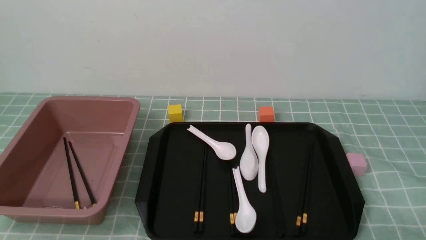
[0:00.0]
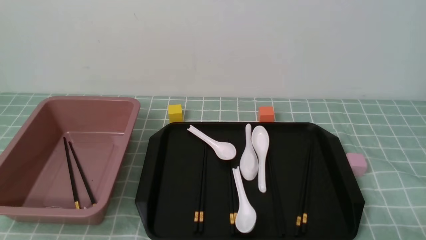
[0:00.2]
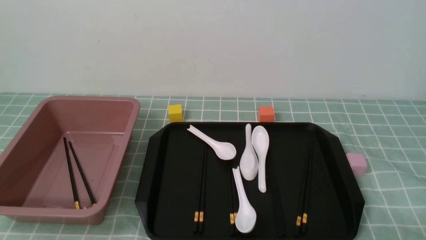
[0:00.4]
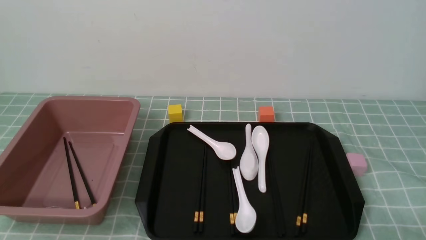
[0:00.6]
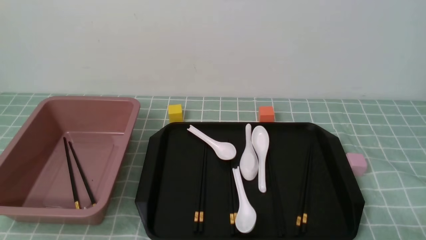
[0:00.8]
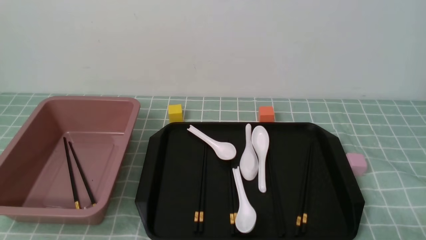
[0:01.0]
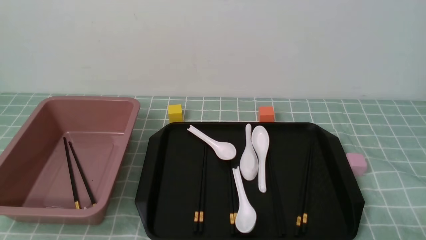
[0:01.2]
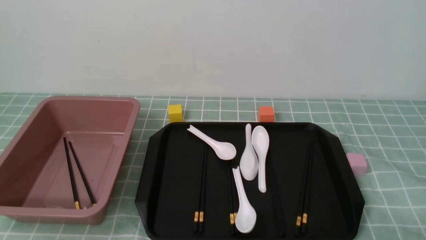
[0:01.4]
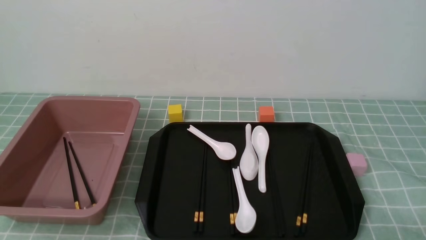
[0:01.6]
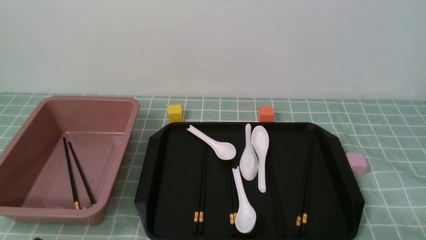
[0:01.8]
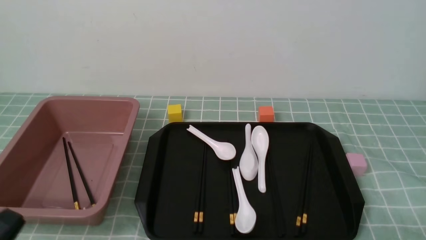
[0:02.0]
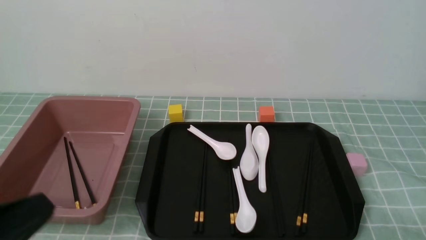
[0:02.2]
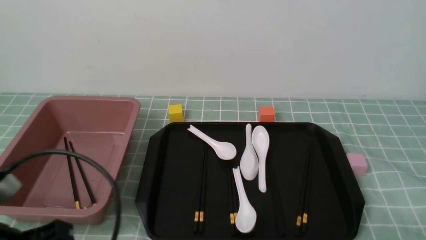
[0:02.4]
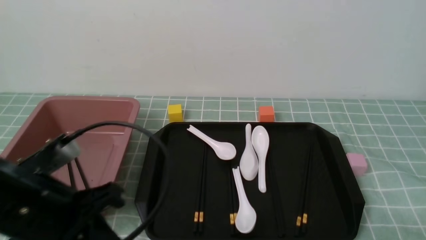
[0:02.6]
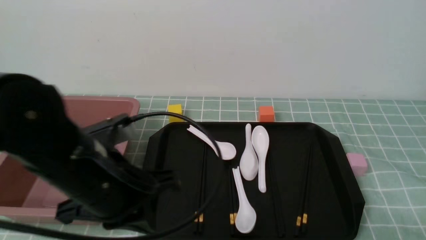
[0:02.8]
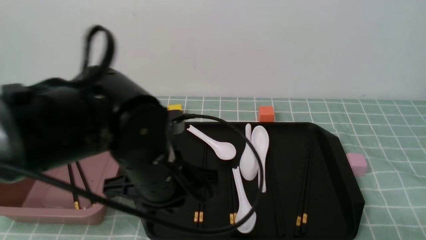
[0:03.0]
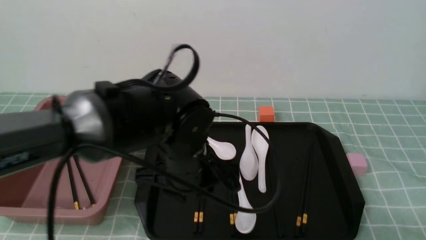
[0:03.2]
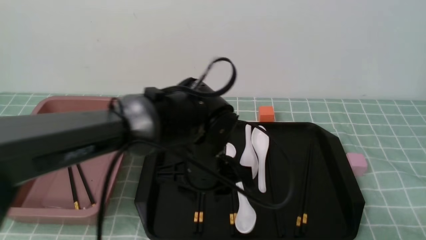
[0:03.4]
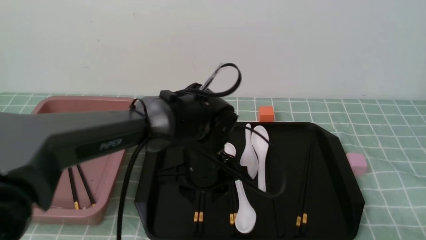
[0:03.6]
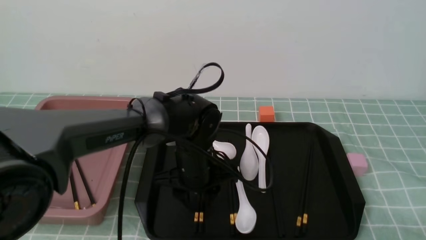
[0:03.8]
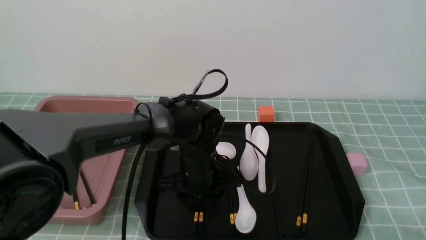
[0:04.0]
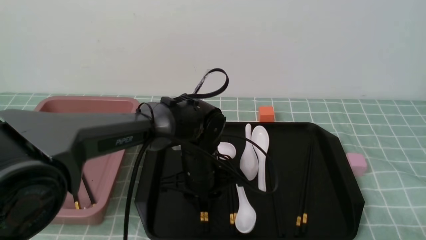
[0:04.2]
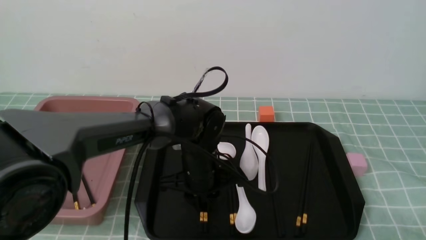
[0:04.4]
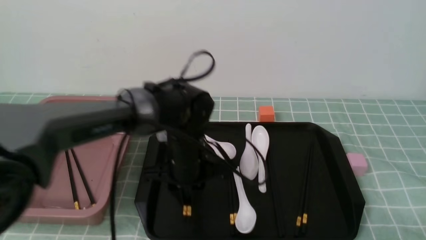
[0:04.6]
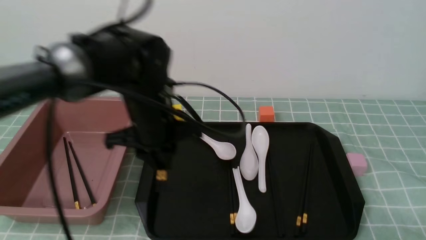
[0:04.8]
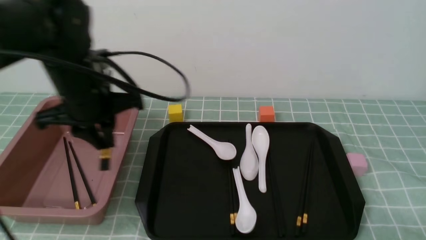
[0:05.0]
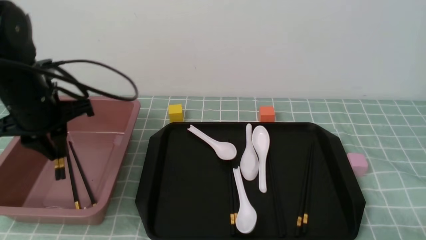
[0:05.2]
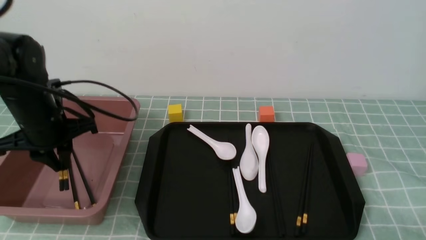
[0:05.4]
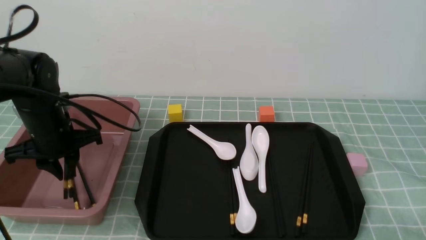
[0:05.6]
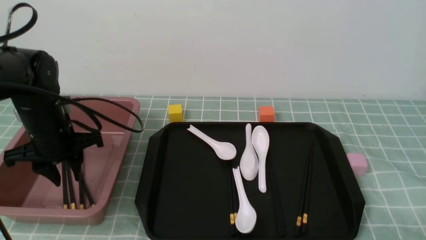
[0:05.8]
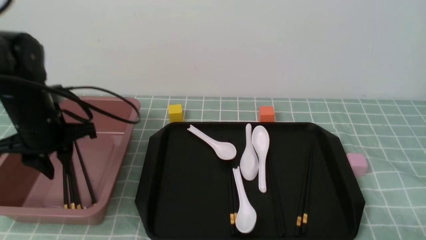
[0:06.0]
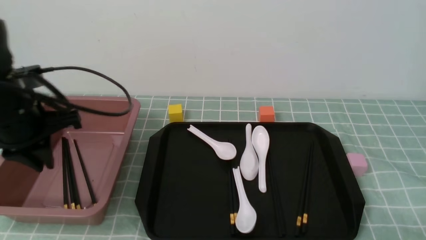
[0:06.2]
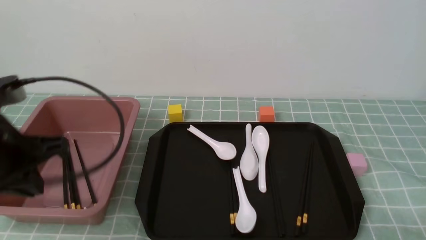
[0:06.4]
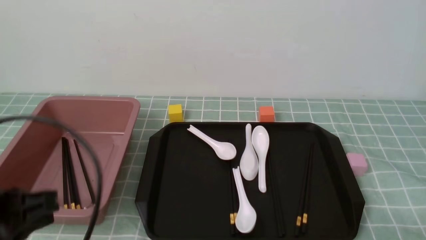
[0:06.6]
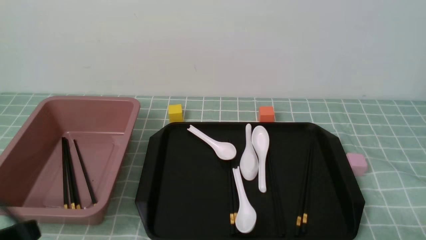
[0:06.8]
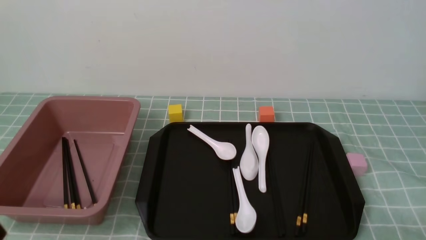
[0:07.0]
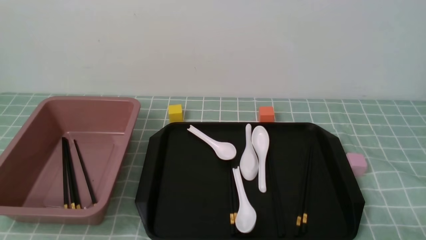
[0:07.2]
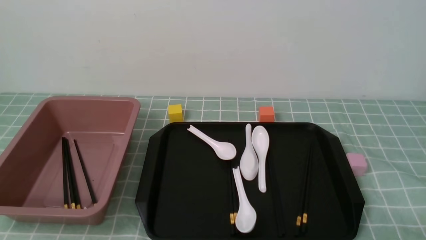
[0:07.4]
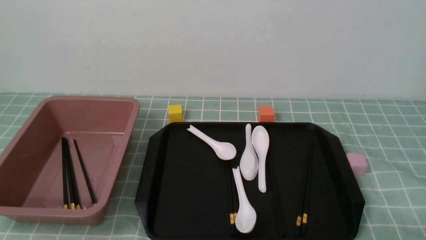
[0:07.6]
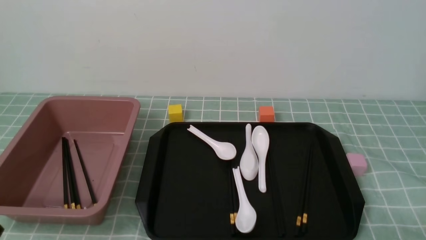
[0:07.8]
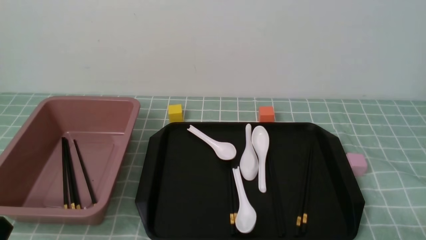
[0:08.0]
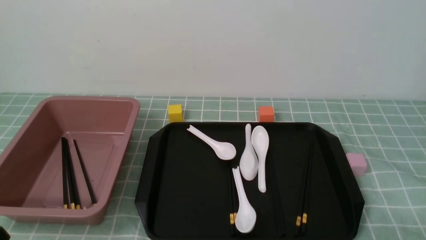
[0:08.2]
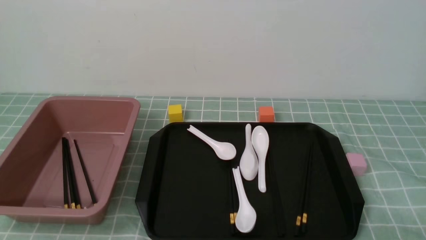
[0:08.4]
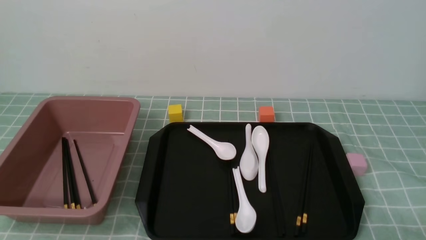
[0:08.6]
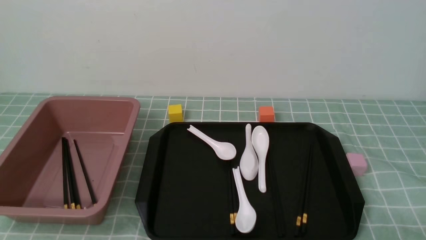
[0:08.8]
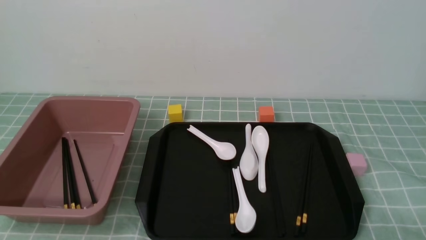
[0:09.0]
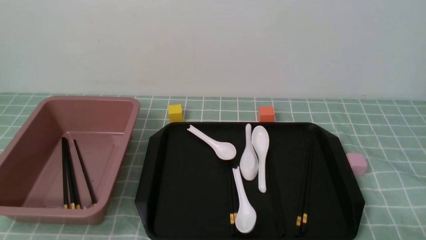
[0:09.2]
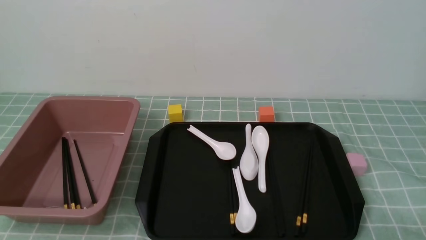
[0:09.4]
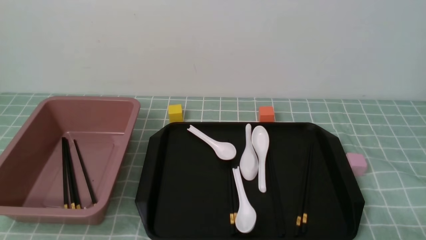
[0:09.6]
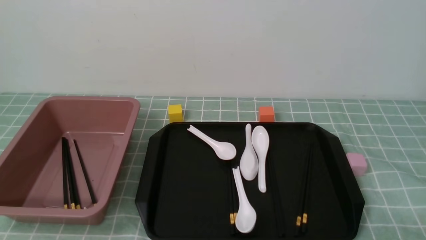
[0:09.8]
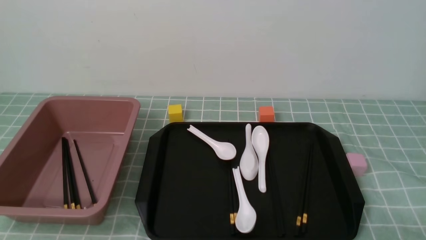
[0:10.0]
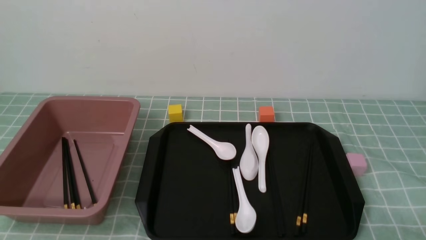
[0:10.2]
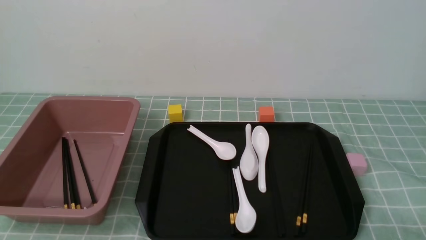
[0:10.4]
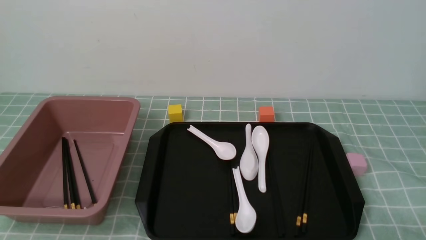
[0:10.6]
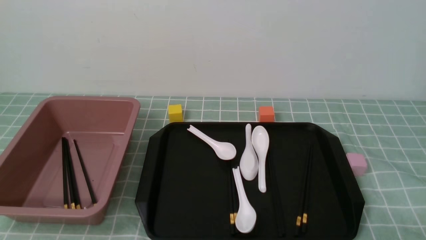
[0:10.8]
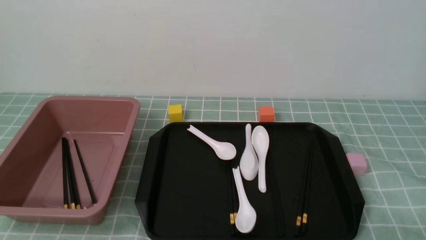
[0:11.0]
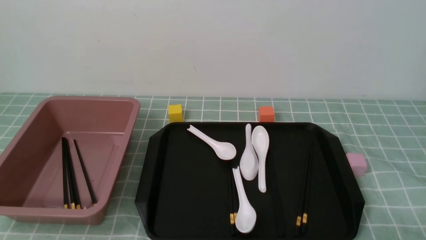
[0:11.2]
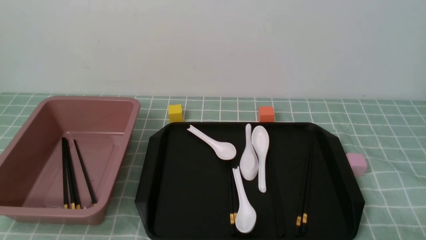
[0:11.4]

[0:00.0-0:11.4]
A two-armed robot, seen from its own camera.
Step, 0:00.0 to 0:04.8: use the left arm to grab a pair of chopsticks.
Step, 0:05.0 to 0:06.0: use the left arm to put the chopsticks into the lunch box.
0:01.4 to 0:02.8: The left gripper moves forward, upward and to the right, approximately 20 cm, and closes up.
0:02.8 to 0:04.2: The left gripper heads forward, downward and to the right, covering roughly 25 cm, and opens.
0:04.2 to 0:05.6: The left gripper goes some 25 cm to the left.
0:05.6 to 0:07.2: The left gripper shifts approximately 30 cm backward, and closes its fingers.
0:10.0 to 0:11.4: The two grippers keep their place.
